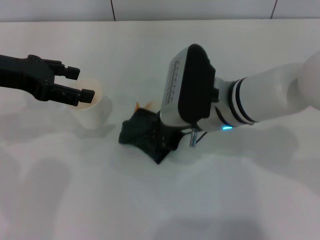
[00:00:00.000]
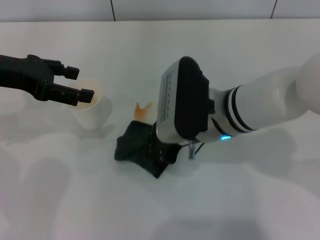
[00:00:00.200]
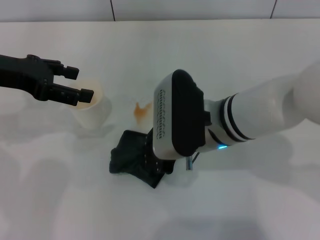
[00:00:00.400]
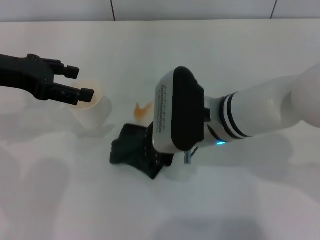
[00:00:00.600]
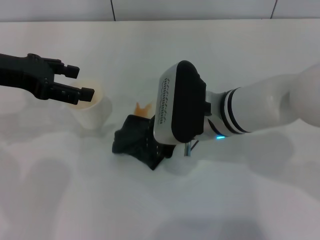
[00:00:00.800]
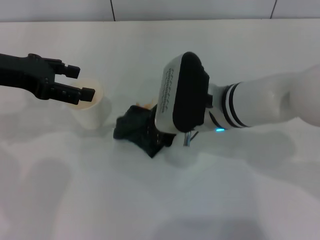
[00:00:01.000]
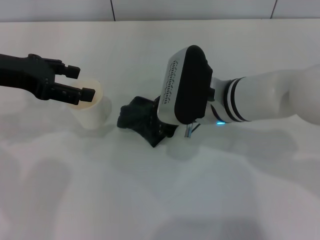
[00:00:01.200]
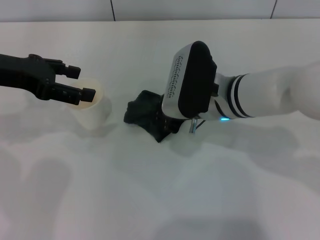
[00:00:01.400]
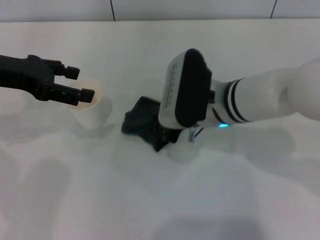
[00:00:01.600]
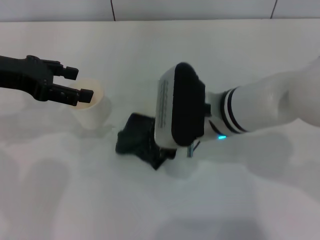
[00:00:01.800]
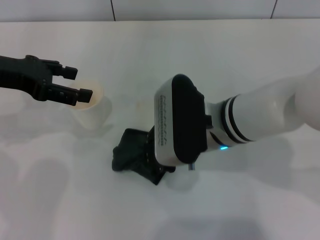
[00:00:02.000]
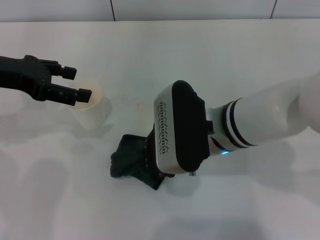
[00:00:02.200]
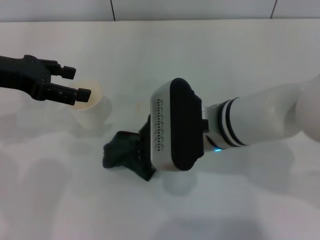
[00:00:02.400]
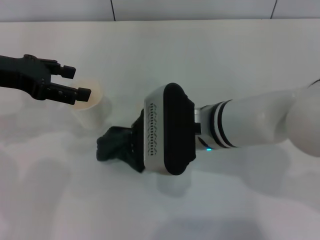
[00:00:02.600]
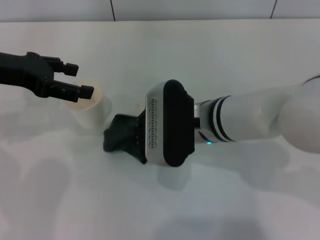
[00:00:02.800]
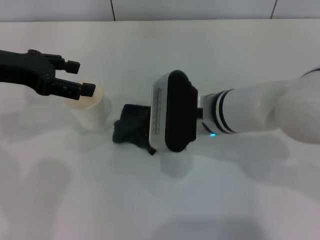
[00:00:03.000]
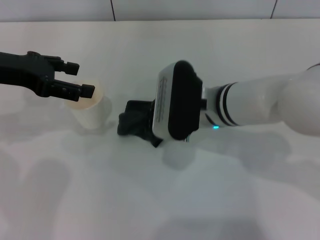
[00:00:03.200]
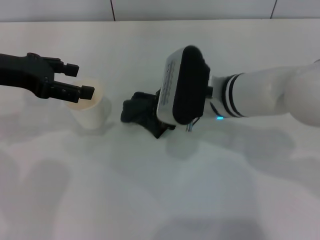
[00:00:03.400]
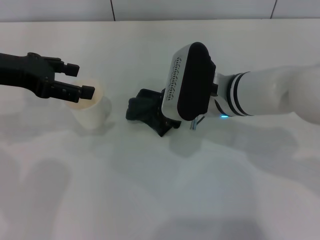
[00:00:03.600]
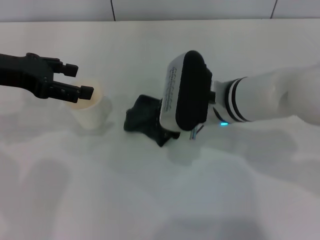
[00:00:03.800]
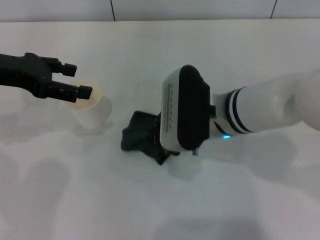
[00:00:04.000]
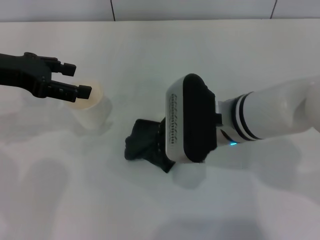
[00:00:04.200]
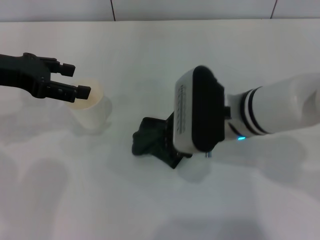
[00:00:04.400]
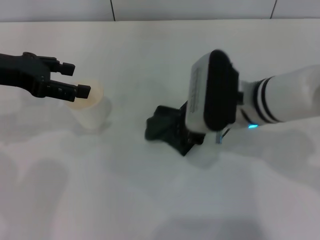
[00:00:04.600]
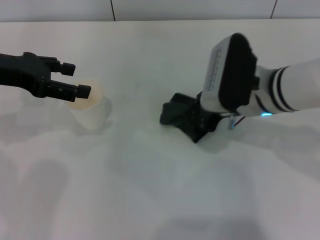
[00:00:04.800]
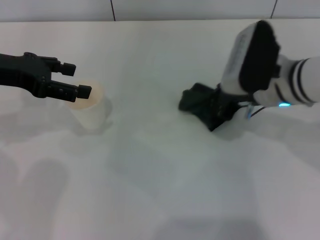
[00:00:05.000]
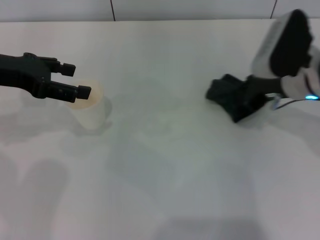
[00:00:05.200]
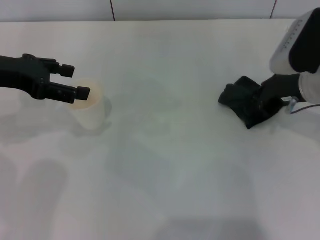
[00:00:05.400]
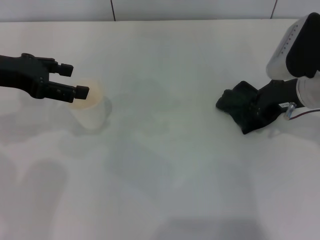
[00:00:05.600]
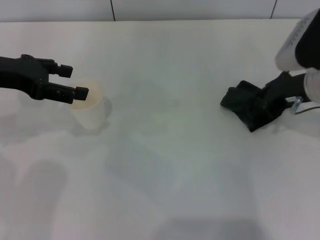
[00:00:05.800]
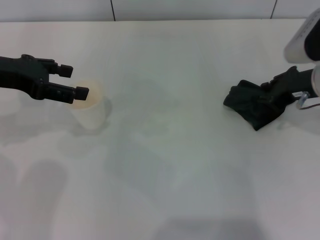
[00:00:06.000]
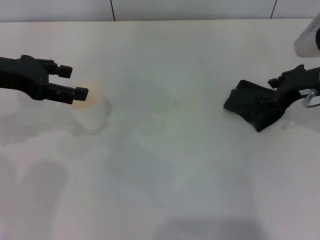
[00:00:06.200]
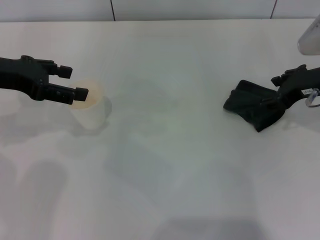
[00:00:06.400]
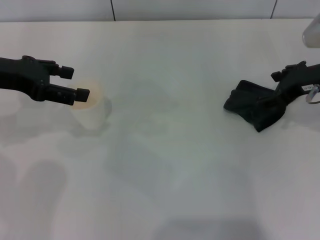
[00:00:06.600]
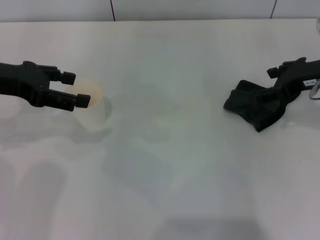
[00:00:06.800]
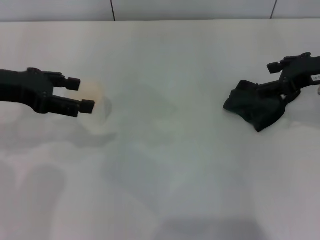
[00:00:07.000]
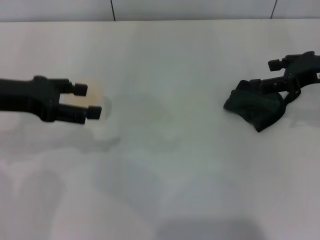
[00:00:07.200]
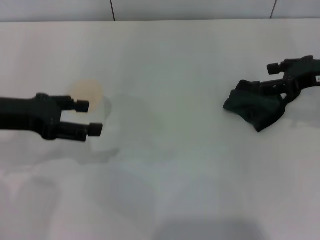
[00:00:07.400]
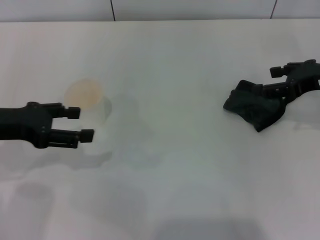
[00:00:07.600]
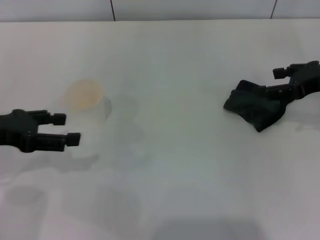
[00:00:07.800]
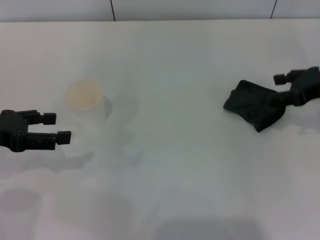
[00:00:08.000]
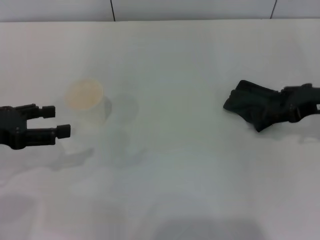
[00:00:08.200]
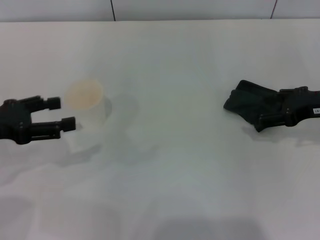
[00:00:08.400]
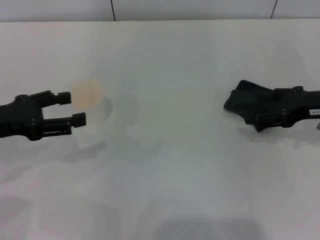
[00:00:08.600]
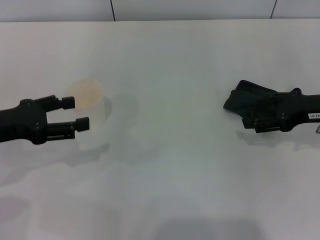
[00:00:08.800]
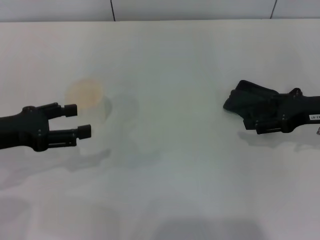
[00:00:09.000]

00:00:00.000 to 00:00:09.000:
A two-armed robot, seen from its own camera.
Step, 00:00:00.000 to 00:00:06.000: Wipe the stains off the table with the right gripper.
Step, 00:00:06.200 to 00:00:07.400: Place the rag on the table with the right gripper.
00:00:00.000 to 00:00:04.400: There are only small adjustments of the grippers.
00:00:04.400 to 00:00:06.000: The right gripper goes about 15 cm to the right.
00:00:06.000 to 00:00:07.600: The right gripper is displaced to the right by approximately 5 cm, and opens up. Meanwhile the left gripper shifts roughly 5 cm backward.
00:00:07.600 to 00:00:09.000: The grippers move only a little.
